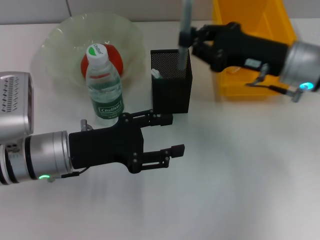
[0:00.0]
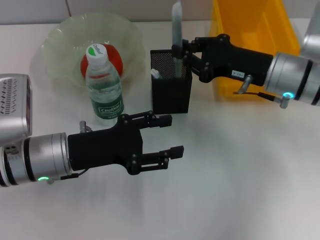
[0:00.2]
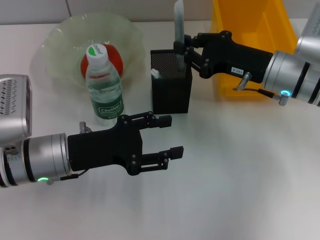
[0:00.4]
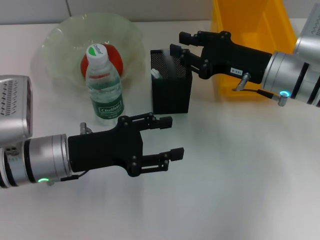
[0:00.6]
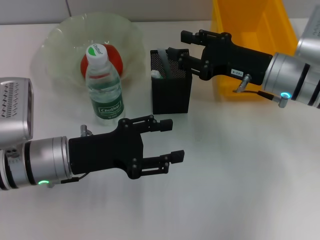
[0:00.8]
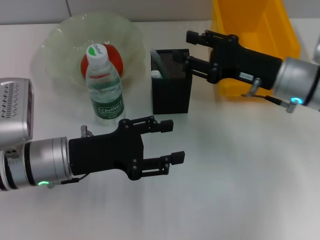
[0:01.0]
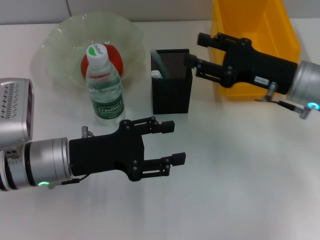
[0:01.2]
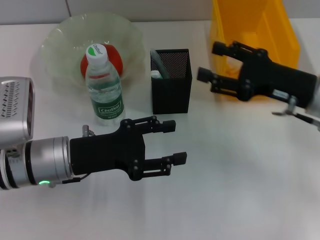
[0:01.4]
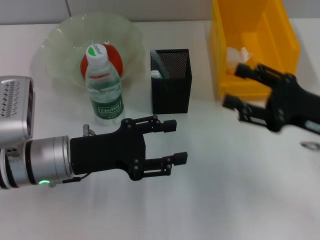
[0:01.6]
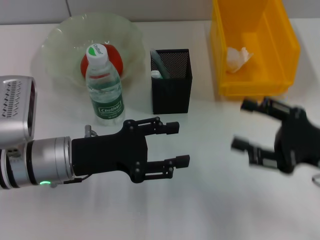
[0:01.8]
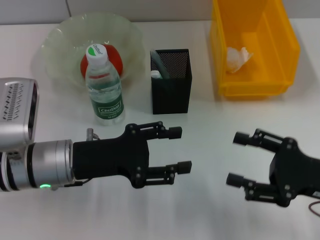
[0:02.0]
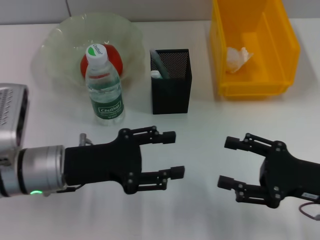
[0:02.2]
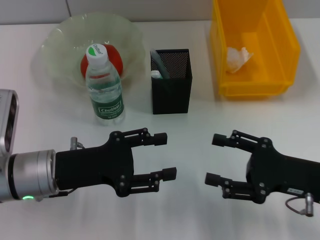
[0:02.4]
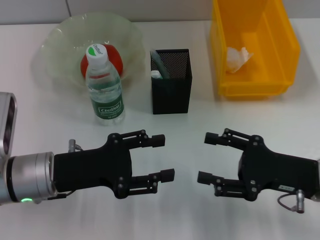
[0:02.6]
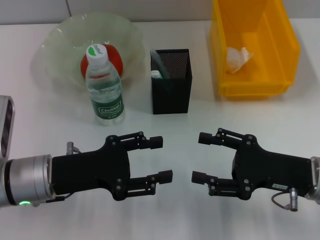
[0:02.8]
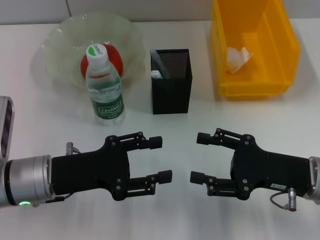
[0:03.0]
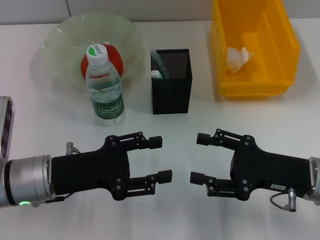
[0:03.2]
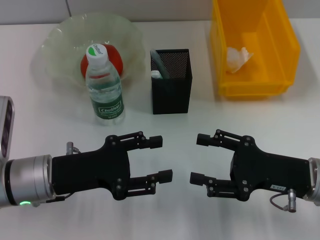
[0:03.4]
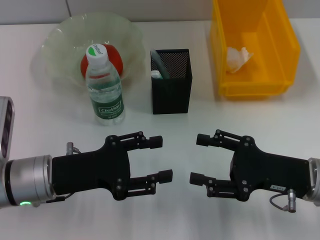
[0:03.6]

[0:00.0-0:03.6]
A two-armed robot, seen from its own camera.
0:00.0 to 0:01.8: The right gripper is displaced backward and to the right by approximately 15 cm, and opens up.
0:01.8 to 0:03.6: The right gripper changes place by about 5 cm.

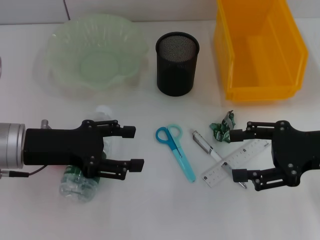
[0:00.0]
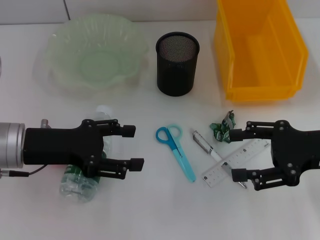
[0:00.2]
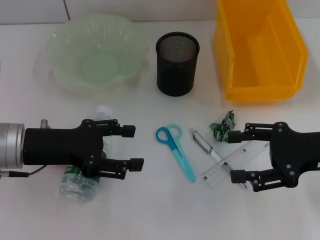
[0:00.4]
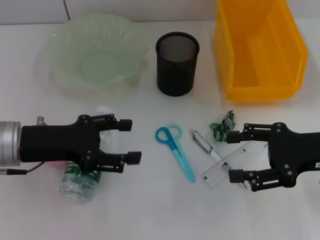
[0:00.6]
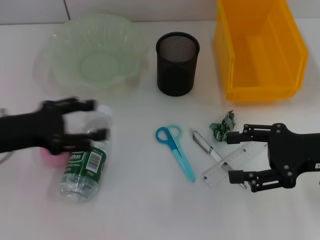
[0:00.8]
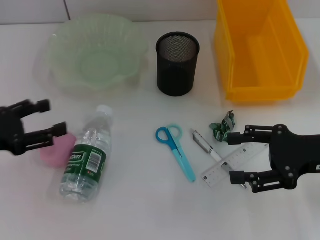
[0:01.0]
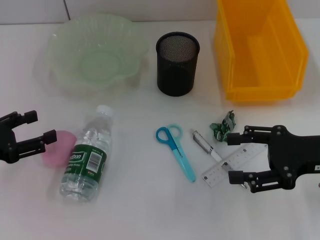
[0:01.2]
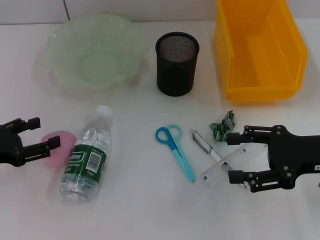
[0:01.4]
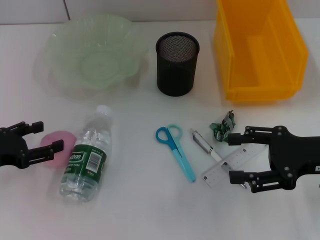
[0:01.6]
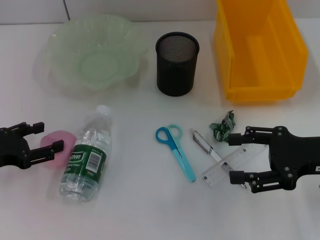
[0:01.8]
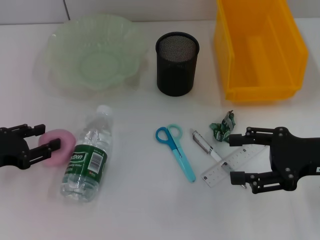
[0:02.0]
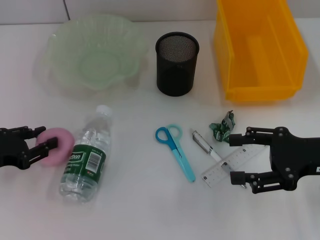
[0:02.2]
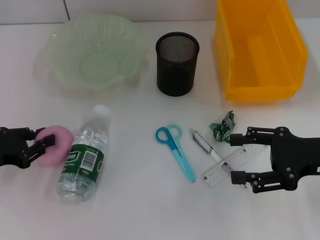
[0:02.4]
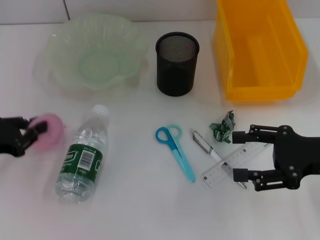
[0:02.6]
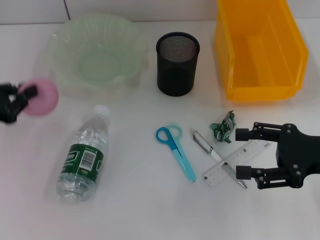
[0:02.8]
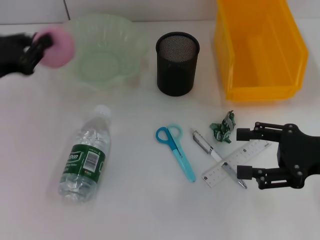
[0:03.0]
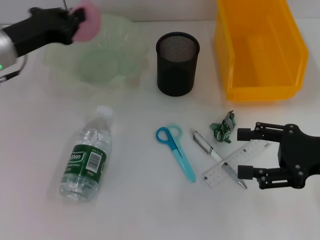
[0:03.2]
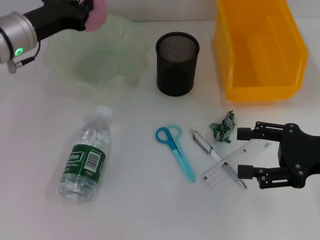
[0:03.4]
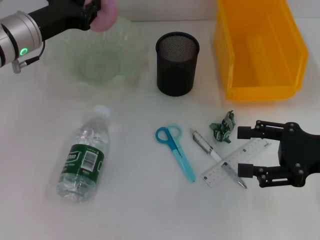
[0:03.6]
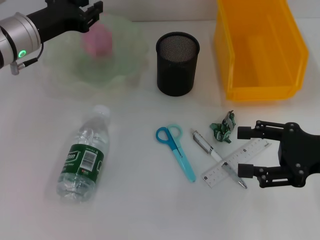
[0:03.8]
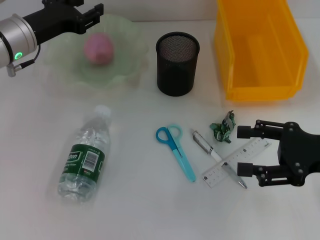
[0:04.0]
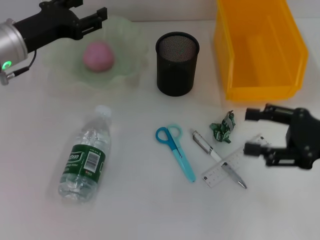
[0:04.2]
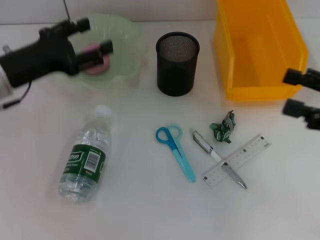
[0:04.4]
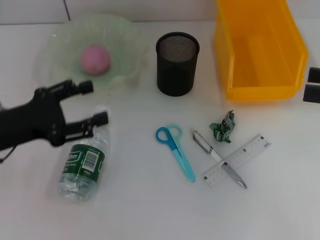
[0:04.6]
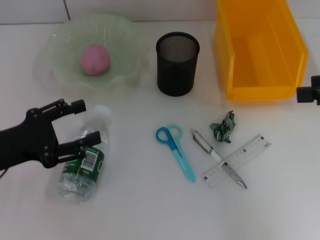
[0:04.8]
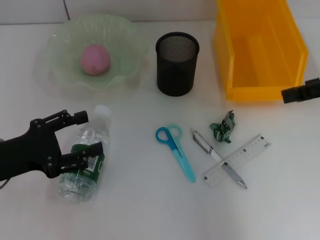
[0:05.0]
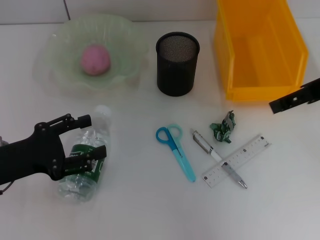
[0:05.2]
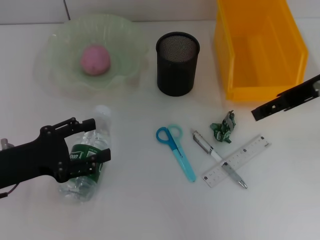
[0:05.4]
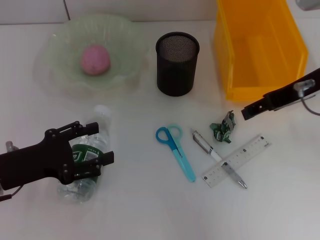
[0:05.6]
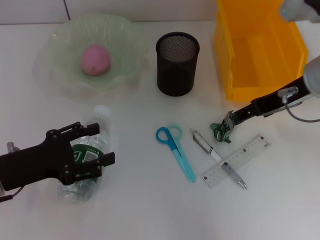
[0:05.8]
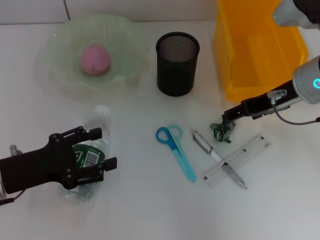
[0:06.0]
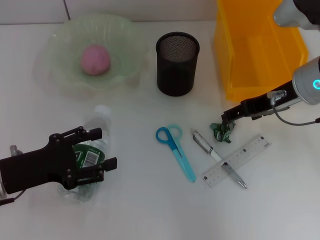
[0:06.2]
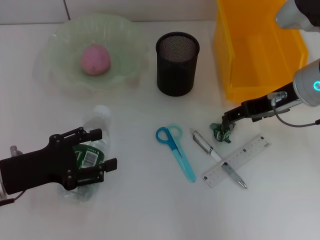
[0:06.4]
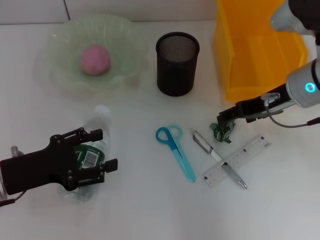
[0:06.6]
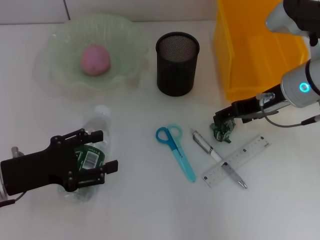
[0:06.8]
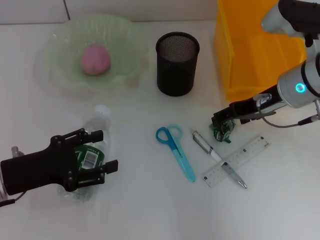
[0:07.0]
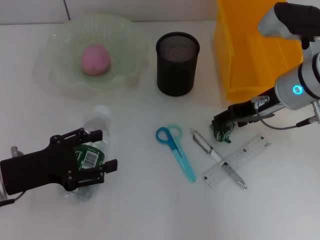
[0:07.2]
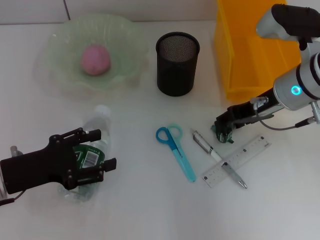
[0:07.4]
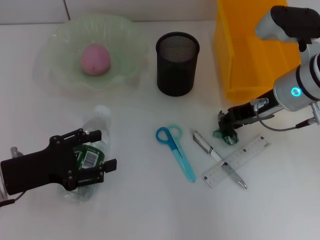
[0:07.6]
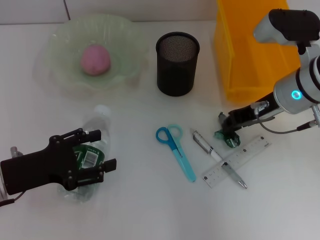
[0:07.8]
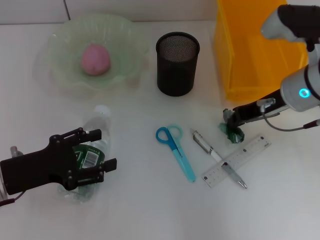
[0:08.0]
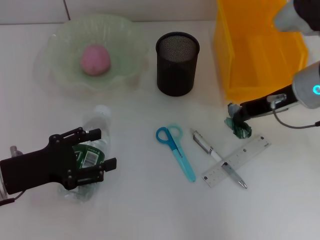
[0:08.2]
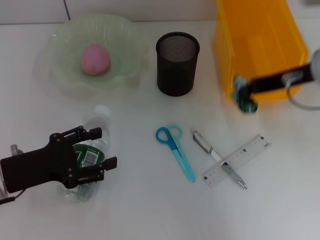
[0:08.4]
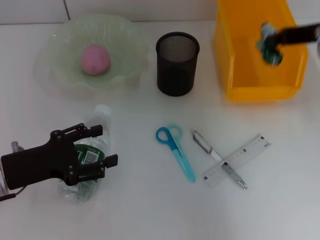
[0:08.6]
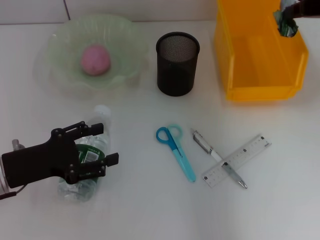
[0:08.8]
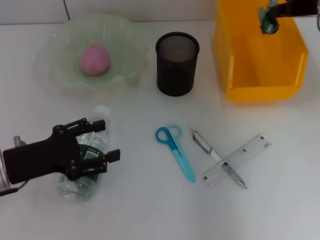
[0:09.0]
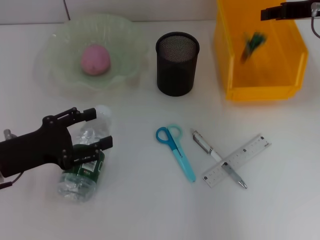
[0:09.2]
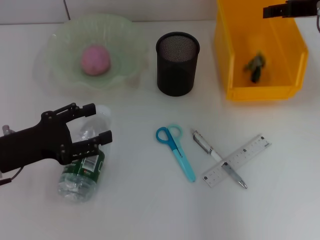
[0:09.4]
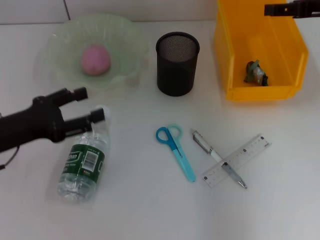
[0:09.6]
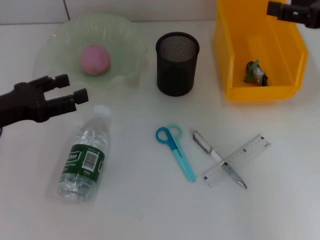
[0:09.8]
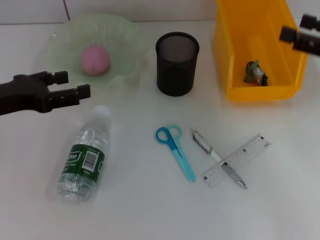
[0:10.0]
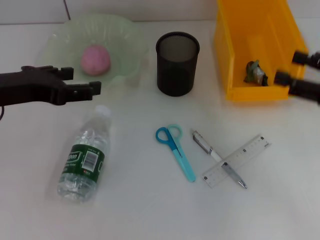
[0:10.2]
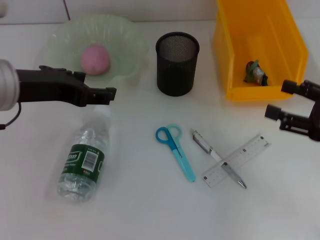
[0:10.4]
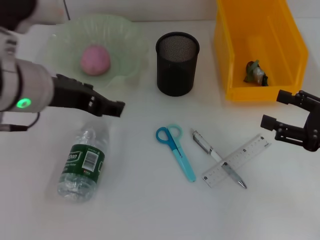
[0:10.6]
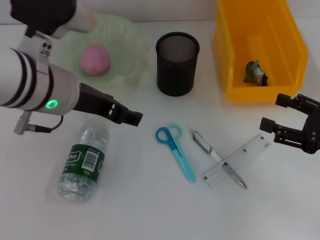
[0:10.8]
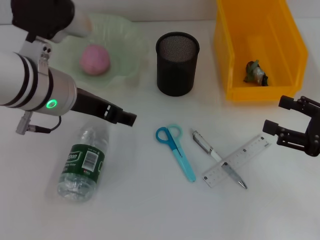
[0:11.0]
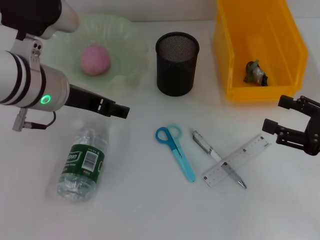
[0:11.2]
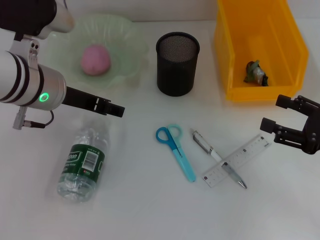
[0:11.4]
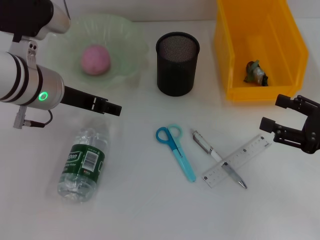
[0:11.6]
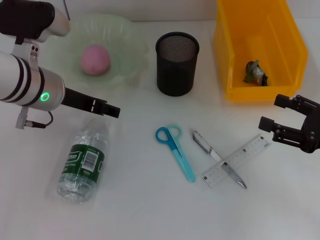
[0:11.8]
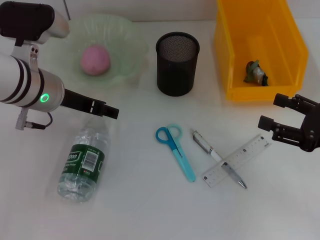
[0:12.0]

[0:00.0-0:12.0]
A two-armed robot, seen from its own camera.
Step, 0:00.0 to 0:02.2: Grab the peach with the left hand.
Step, 0:02.4 to 0:04.2: Place the peach into the fruit bowl with the left hand.
Step, 0:04.4 to 0:07.6: Grab the plastic with the right hand.
Step, 0:08.0 to 0:09.4: Place the plastic into the trash can with the right hand.
0:00.0 to 0:01.6: The left gripper travels to the left by about 10 cm.
0:01.6 to 0:03.0: The left gripper is displaced forward and upward by roughly 10 cm, and closes up.
0:03.0 to 0:04.4: The right gripper shifts by roughly 5 cm, while the left gripper goes forward and returns, roughly 10 cm each way, and opens.
0:04.4 to 0:06.0: The right gripper is displaced to the left and forward by roughly 15 cm. The left gripper shifts approximately 10 cm backward and downward.
0:06.0 to 0:07.6: The grippers make only small movements.
0:07.6 to 0:09.0: The right gripper goes about 10 cm upward and to the right, and closes up.
0:09.0 to 0:10.4: The left gripper travels upward and to the right by some 15 cm, while the right gripper shifts some 20 cm backward and downward, and opens its fingers.
0:10.4 to 0:12.0: The left gripper moves downward and forward, some 10 cm.

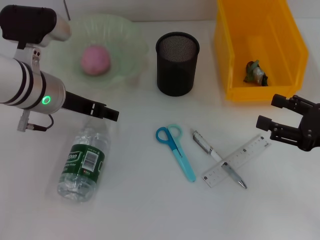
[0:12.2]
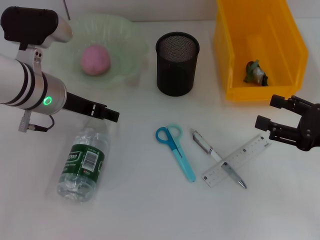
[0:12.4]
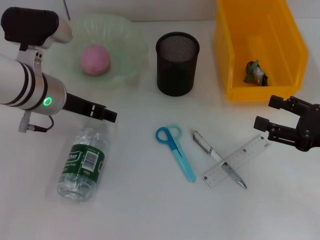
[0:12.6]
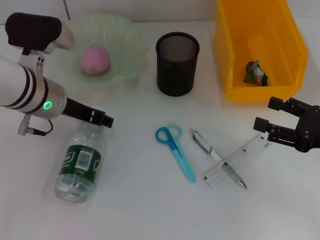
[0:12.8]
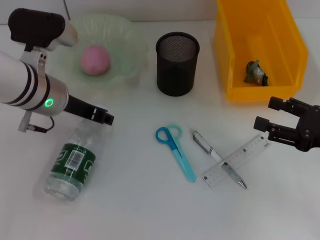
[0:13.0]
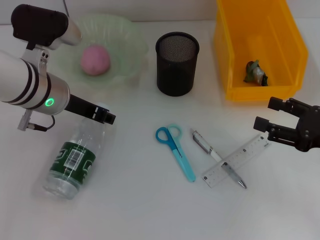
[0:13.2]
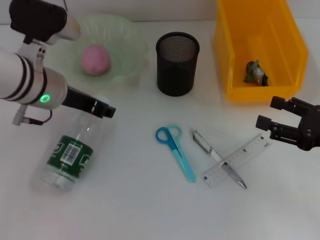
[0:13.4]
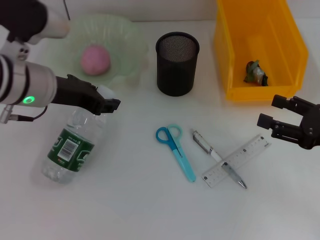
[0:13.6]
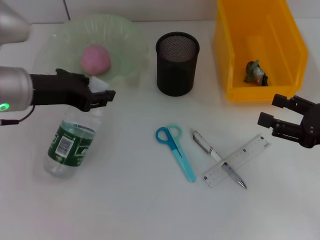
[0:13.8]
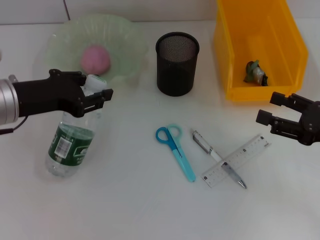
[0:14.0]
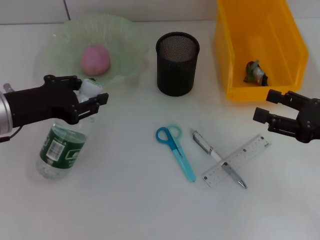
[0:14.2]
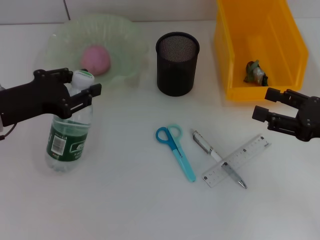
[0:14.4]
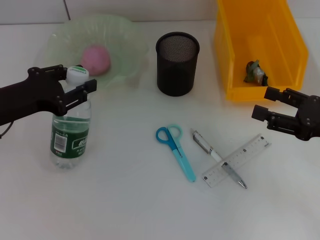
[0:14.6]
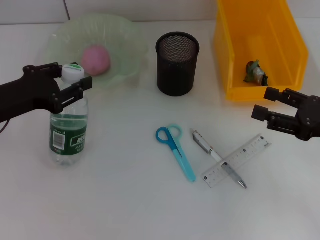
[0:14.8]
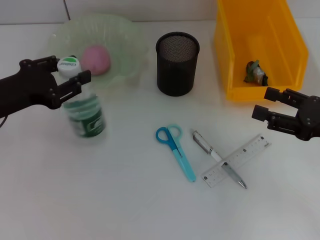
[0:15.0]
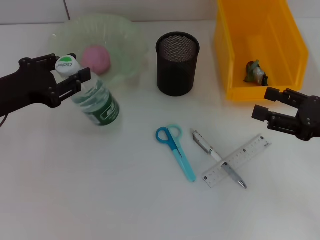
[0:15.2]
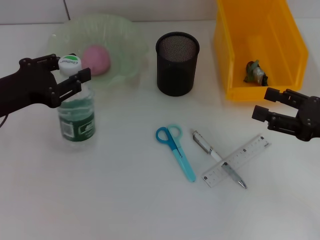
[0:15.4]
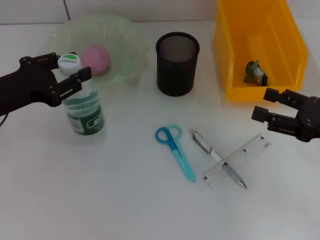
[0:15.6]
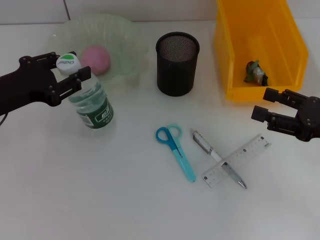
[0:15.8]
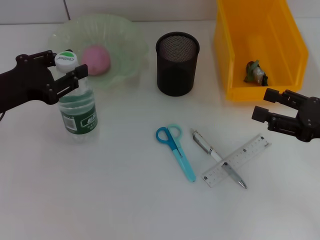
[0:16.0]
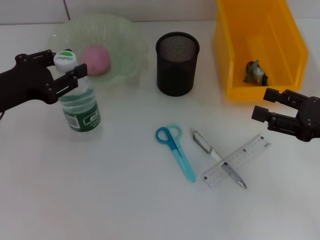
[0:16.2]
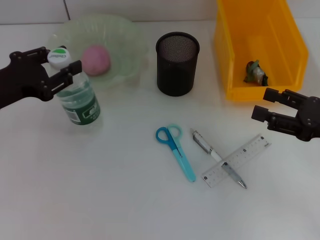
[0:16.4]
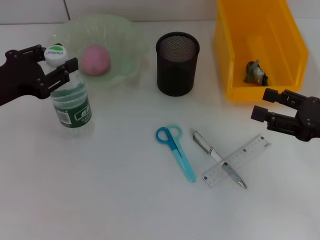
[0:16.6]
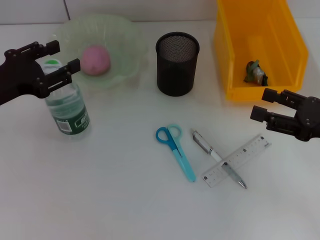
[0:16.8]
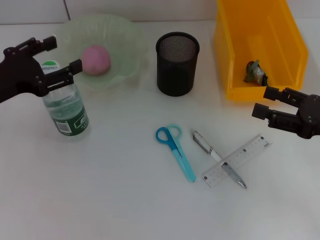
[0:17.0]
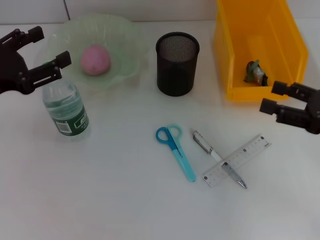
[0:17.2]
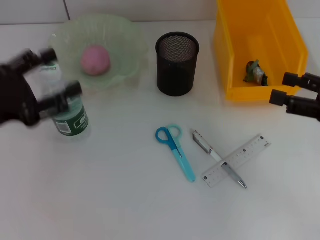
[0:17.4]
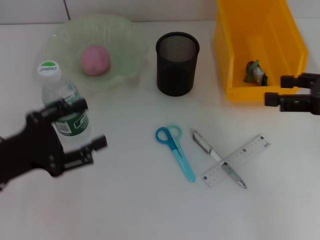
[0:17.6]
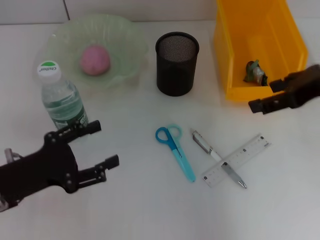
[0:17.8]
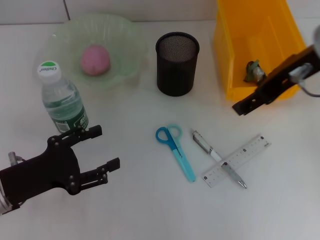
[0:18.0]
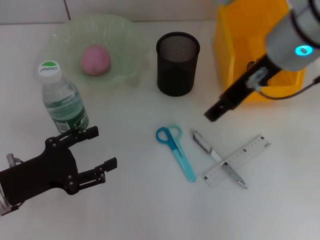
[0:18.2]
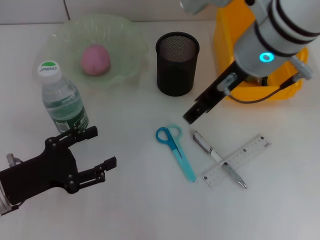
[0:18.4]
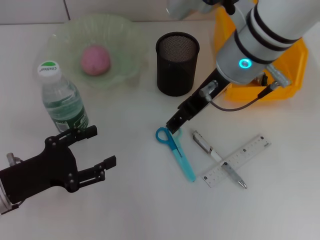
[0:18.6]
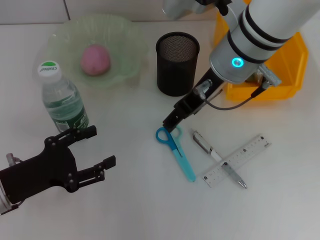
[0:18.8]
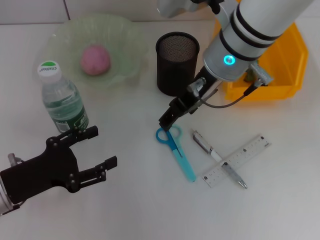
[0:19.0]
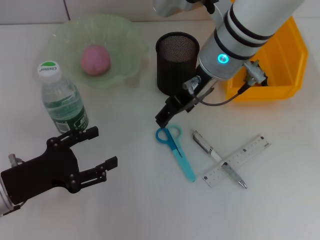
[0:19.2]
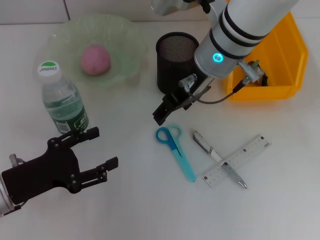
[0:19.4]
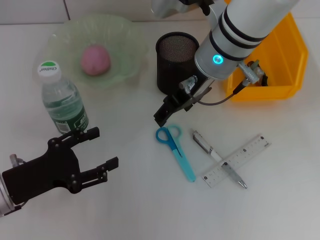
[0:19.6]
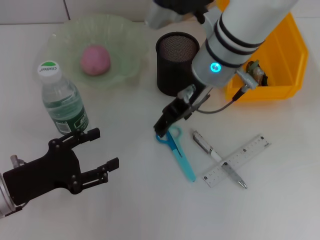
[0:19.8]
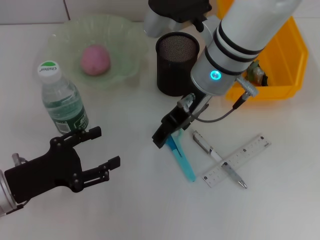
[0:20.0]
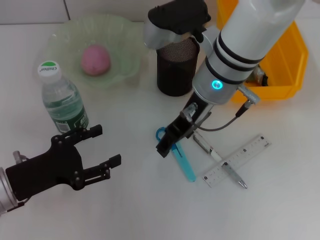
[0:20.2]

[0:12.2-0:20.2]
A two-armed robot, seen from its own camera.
Step, 0:13.0 to 0:16.8: Place the water bottle on the table with the left hand.
0:12.2 to 0:13.8: The left gripper ends up about 5 cm from where it was, and closes up.
0:13.8 to 0:15.4: The left gripper moves to the left, approximately 5 cm.
0:15.4 to 0:17.0: The left gripper opens.
0:17.0 to 0:18.6: The left gripper heads downward and backward, covering some 10 cm; the right gripper shifts roughly 25 cm to the left, upward and forward.
0:18.6 to 0:20.2: The grippers stay close to where they were, moving slightly.
